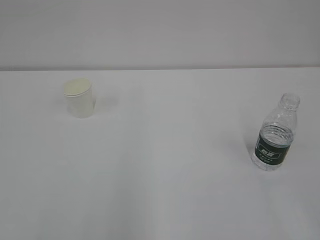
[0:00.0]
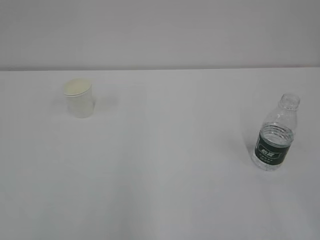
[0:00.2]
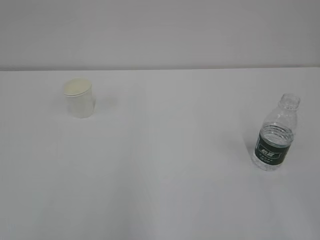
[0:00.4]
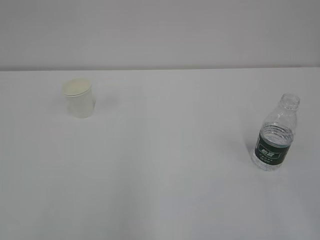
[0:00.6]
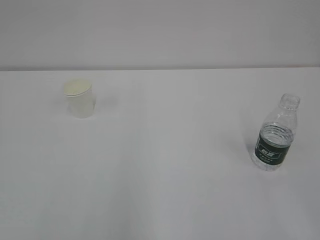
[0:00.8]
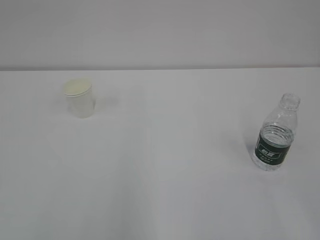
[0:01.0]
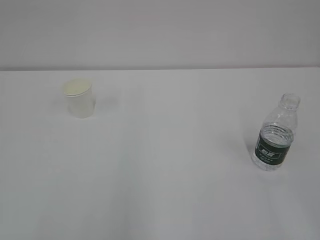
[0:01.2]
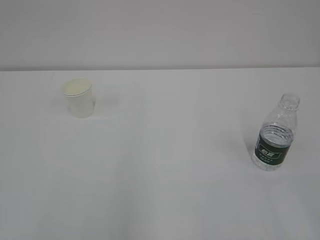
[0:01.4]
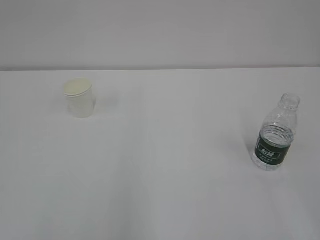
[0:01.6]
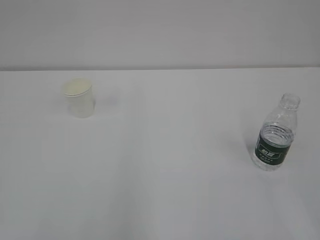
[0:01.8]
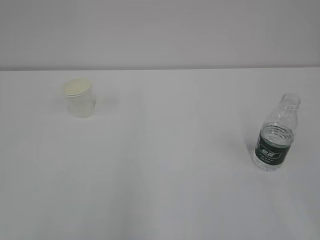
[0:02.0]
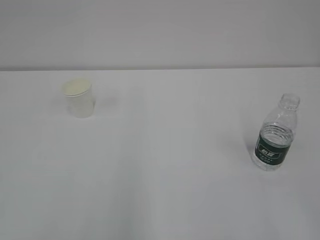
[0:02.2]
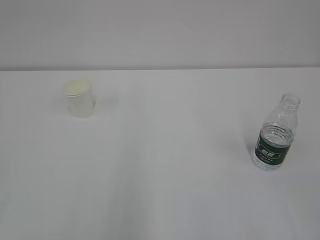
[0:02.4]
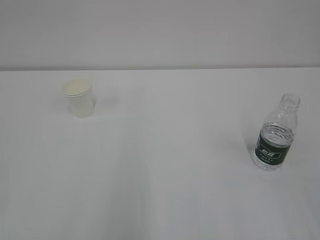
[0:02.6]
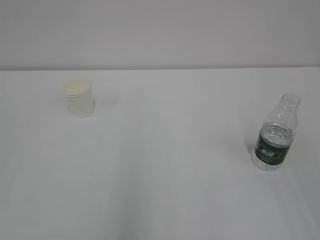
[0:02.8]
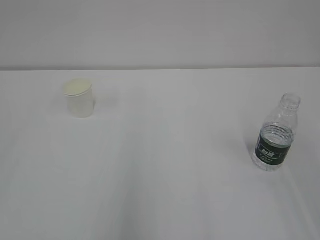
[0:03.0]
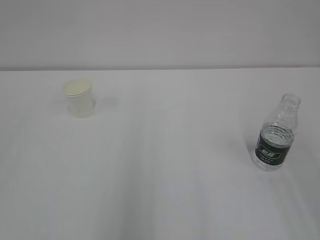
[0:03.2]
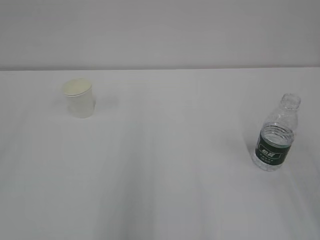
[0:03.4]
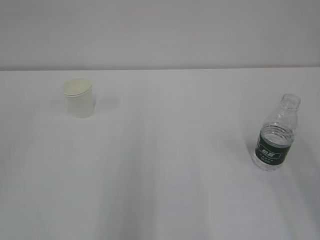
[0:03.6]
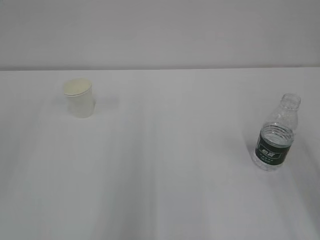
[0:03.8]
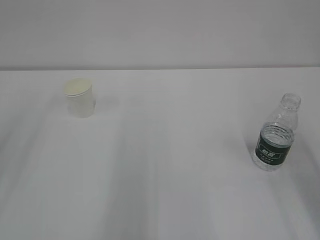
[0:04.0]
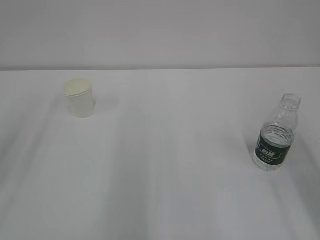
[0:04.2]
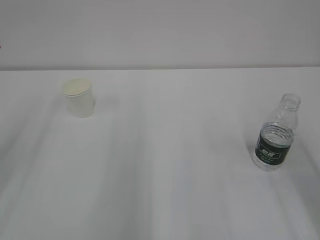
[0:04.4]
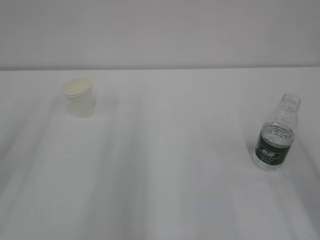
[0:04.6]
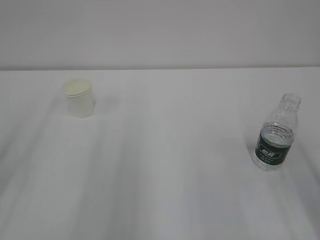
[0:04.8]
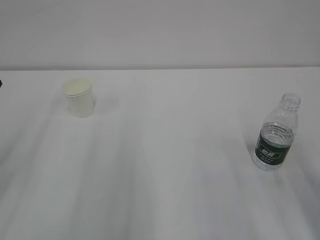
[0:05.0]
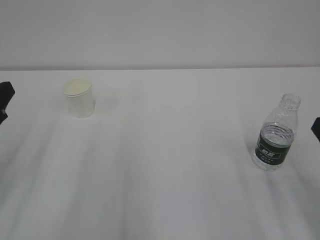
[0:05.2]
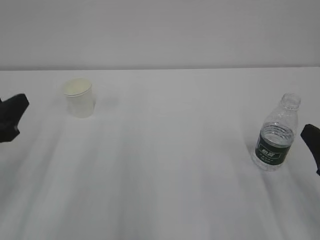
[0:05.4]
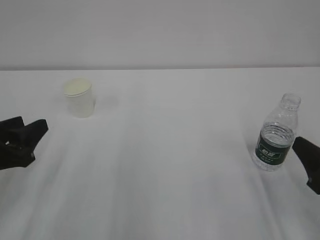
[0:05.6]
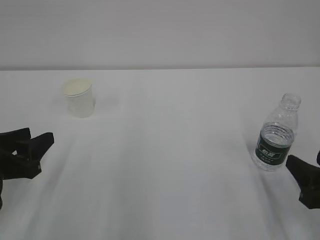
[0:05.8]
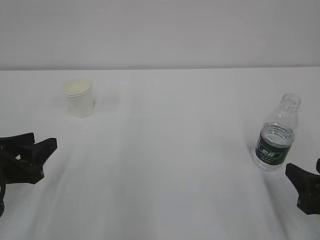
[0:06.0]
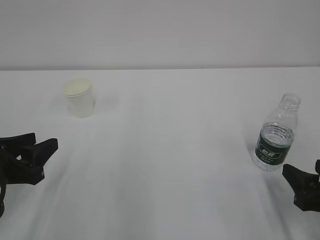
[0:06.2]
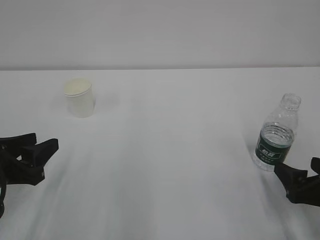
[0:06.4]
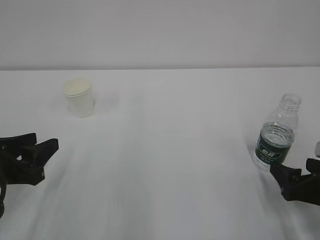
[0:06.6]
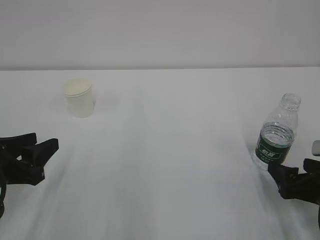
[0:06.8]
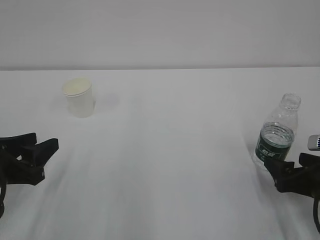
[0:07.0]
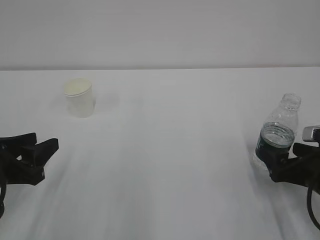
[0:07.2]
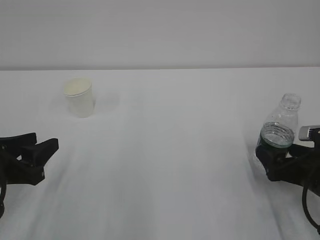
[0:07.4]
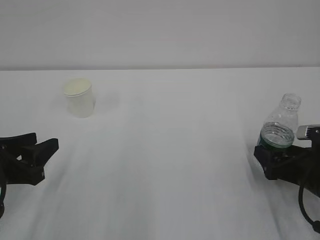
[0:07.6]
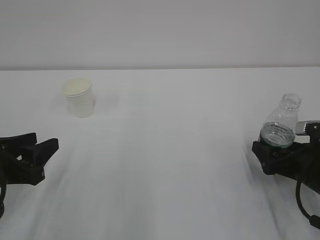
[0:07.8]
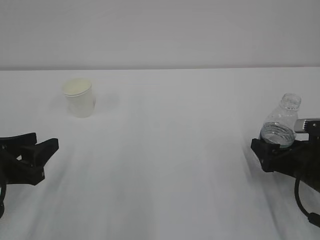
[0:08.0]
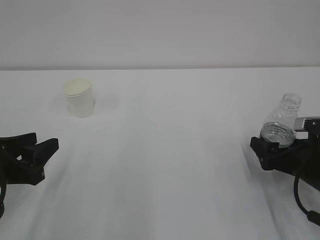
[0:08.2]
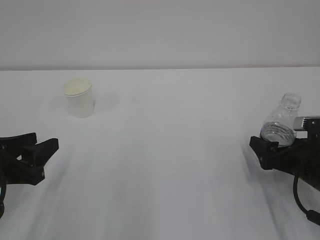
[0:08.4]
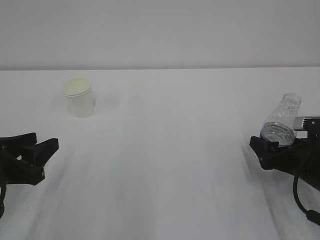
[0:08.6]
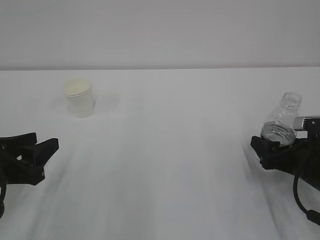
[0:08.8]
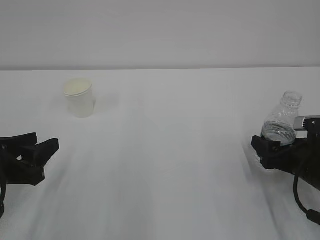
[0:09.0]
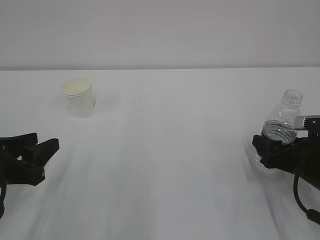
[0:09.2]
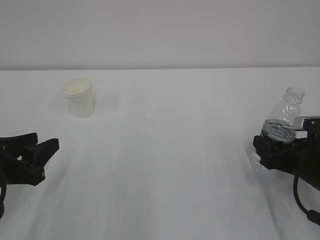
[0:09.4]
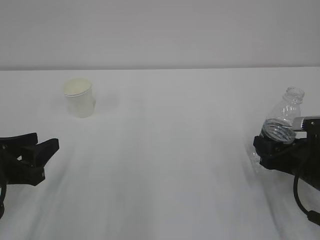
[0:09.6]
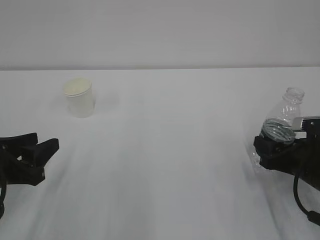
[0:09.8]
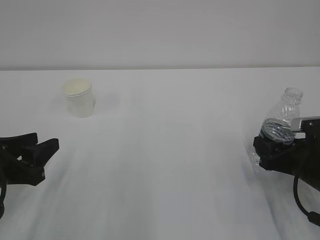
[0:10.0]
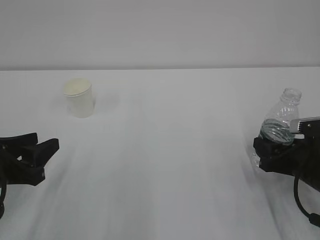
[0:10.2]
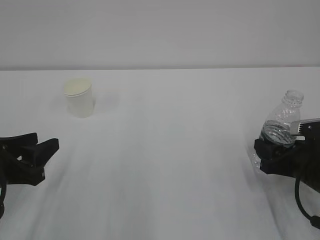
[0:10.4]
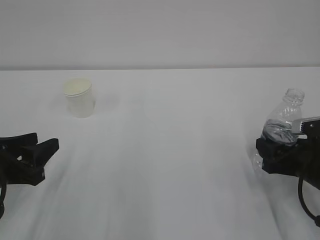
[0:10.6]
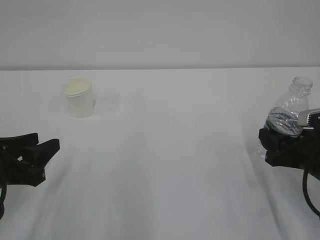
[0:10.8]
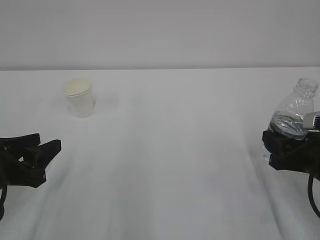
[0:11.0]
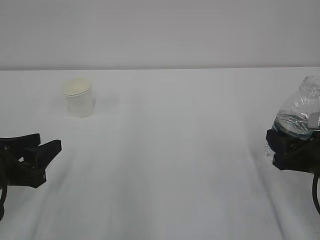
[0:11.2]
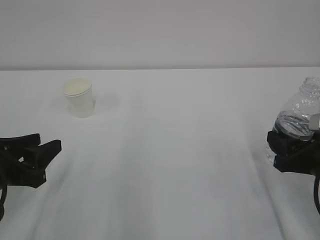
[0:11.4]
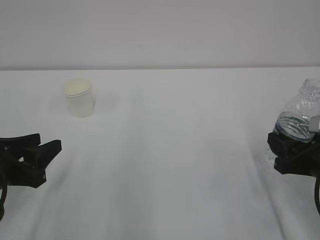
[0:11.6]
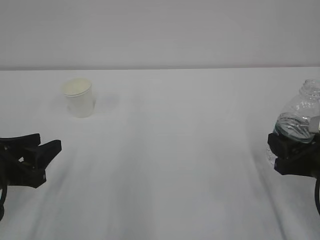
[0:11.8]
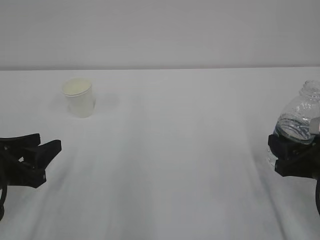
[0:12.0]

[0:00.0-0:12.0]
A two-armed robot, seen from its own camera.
0:04.4 to 0:06.0: Both grippers move downward, about 15 cm.
0:06.0 to 0:07.6: The right gripper goes approximately 10 cm forward, and opens its fingers.
0:07.6 to 0:09.0: The grippers stay close to where they were, moving slightly.
0:09.0 to 0:10.4: The right gripper closes its fingers.
0:10.4 to 0:12.0: There are only small adjustments of the grippers.

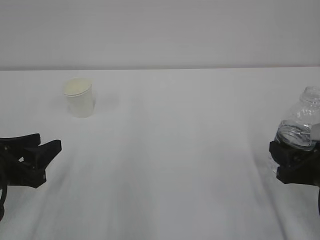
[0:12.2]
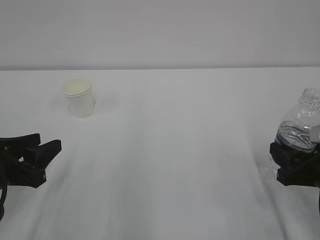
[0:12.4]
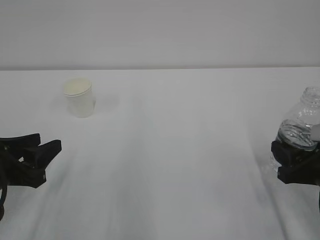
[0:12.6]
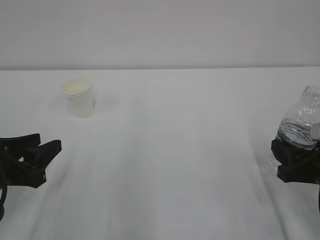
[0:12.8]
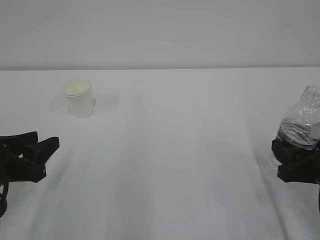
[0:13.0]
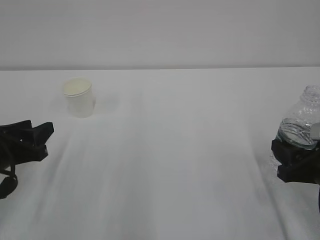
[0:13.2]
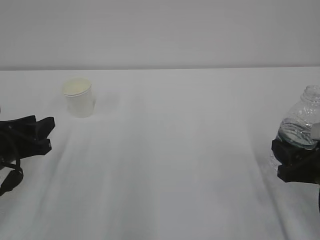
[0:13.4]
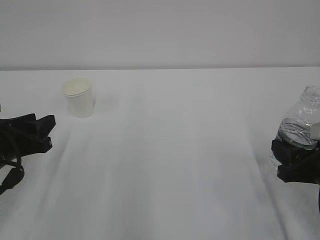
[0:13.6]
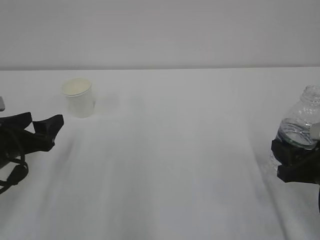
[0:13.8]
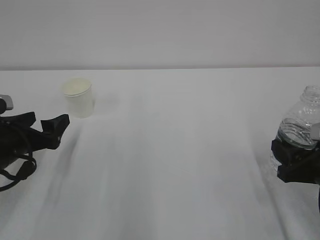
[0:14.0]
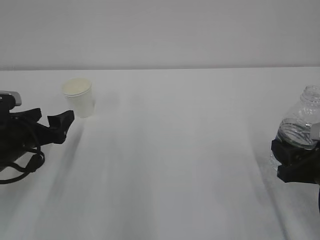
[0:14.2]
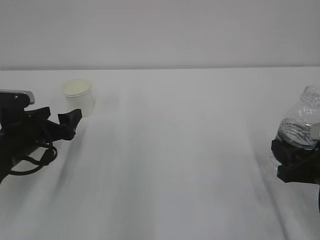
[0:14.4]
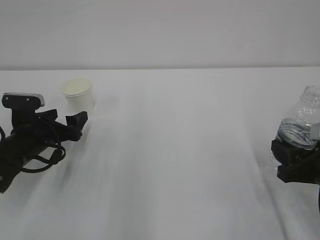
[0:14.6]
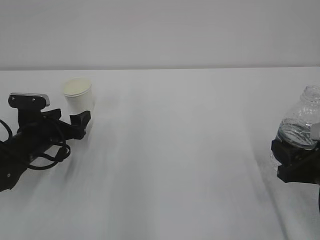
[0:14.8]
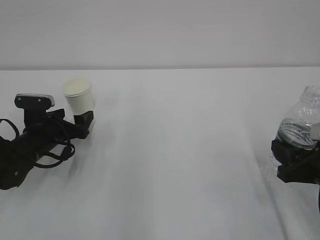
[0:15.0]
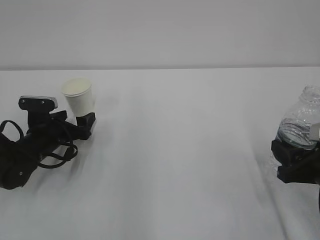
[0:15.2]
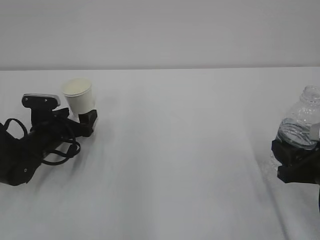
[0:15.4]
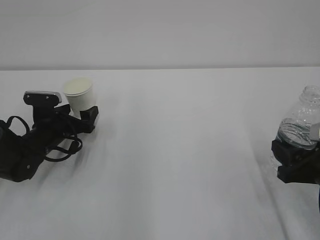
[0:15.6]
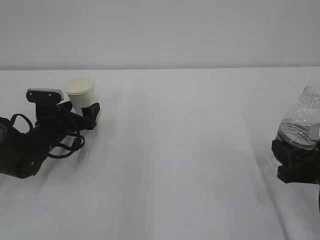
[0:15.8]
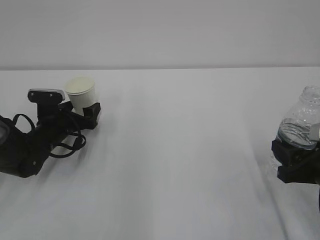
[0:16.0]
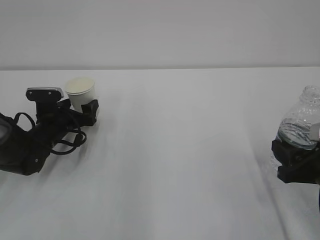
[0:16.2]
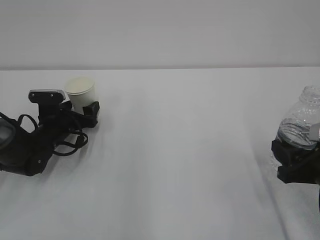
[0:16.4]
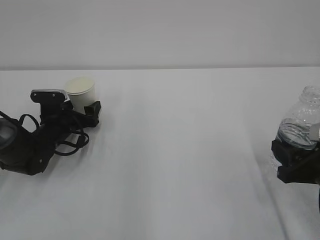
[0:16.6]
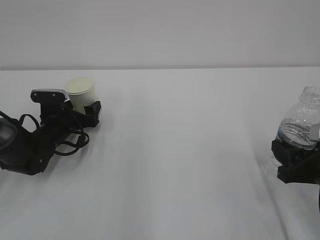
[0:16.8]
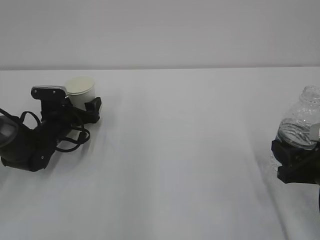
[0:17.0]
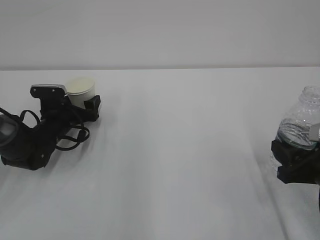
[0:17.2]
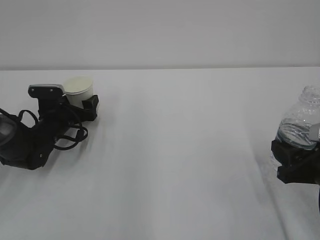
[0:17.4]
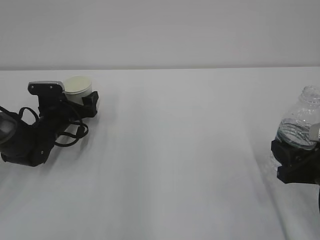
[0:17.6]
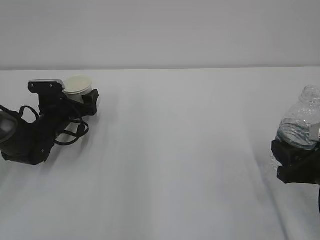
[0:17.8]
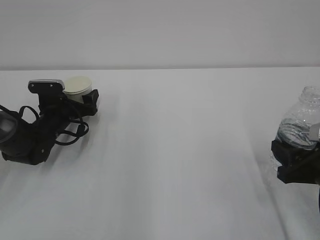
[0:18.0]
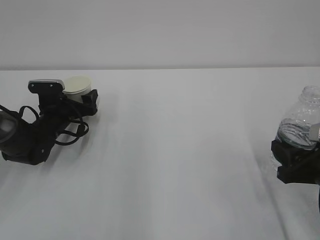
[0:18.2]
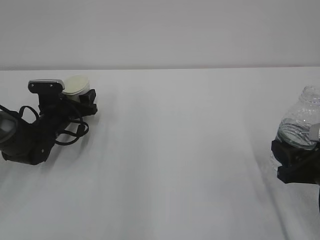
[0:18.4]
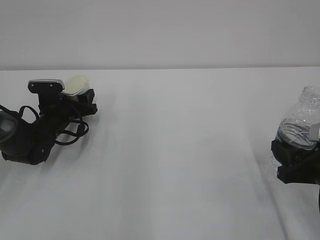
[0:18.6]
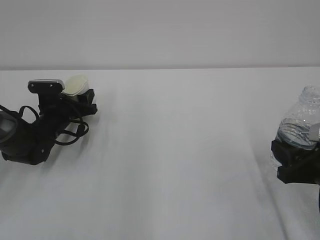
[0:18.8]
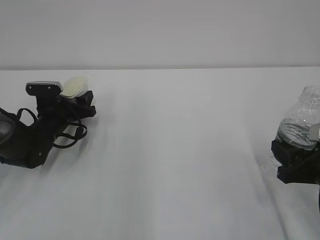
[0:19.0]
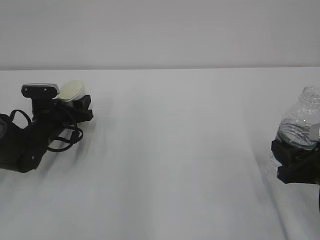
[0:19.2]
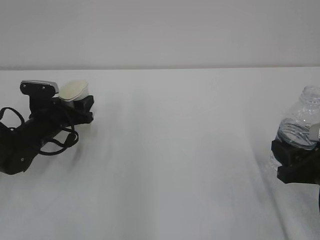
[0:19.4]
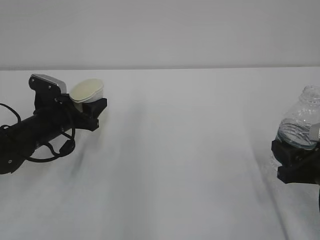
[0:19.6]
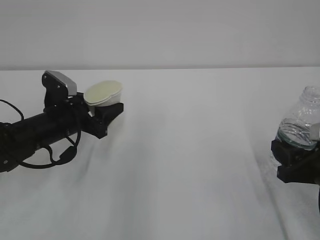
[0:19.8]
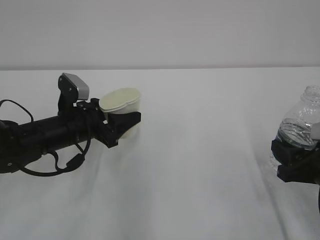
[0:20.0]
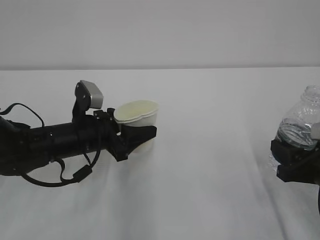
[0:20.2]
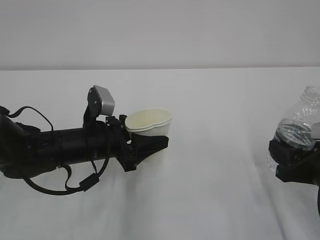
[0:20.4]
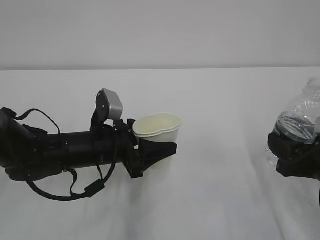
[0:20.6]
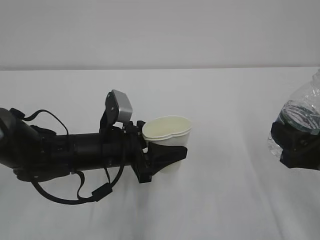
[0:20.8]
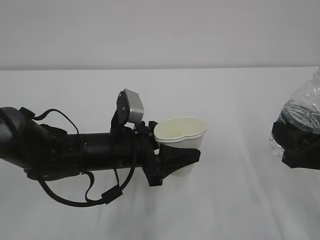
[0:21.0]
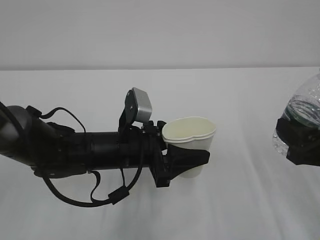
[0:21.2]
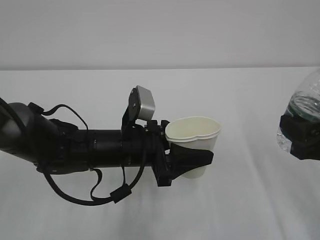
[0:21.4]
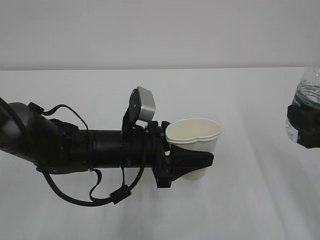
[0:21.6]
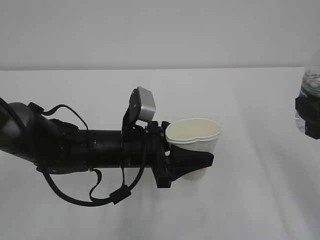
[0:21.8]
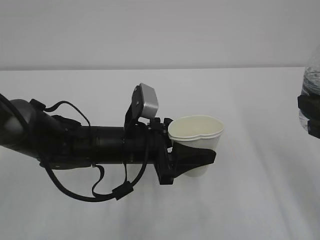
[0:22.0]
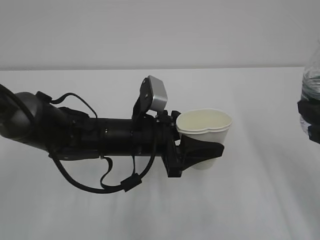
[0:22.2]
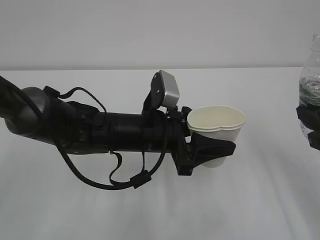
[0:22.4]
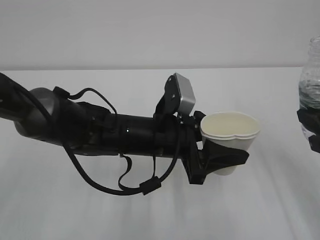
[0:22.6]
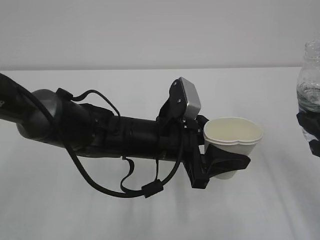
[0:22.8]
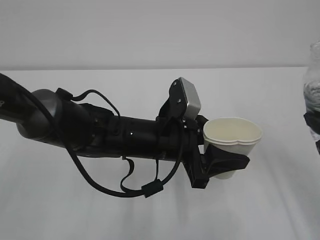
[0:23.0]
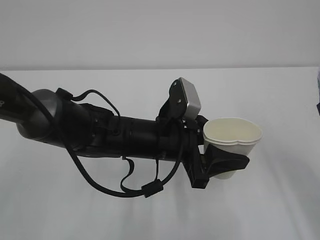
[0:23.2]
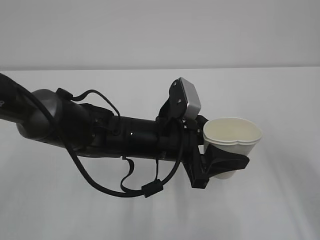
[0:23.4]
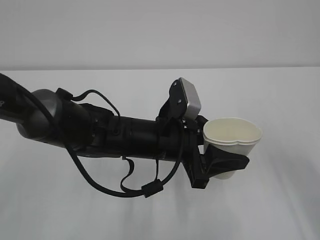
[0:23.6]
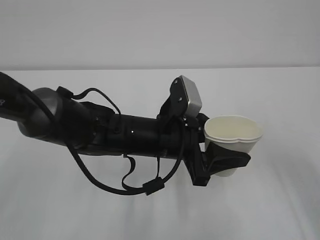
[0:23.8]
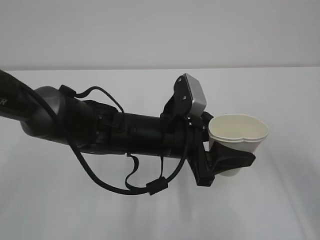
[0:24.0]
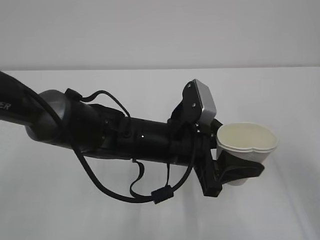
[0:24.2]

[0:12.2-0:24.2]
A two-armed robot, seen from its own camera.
0:12.2 to 0:13.8: The left gripper moves forward, roughly 5 cm, and opens its fingers.
0:13.8 to 0:15.2: The left gripper travels forward and downward by about 15 cm.
0:15.2 to 0:16.6: There are only small adjustments of the grippers.
0:16.6 to 0:18.2: The grippers make only small movements.
0:18.2 to 0:19.8: The left gripper heads backward and upward, covering about 10 cm, and closes.
0:19.8 to 0:21.2: The left gripper goes approximately 15 cm to the right and backward. The right gripper shifts by approximately 5 cm.
0:21.2 to 0:22.6: The right gripper shifts some 5 cm upward, while the left gripper moves to the right, about 5 cm.
0:22.6 to 0:24.2: The grippers stay close to where they were, moving slightly.
